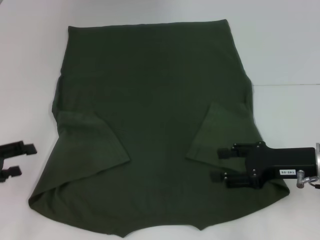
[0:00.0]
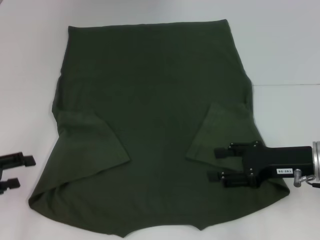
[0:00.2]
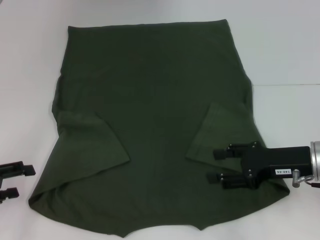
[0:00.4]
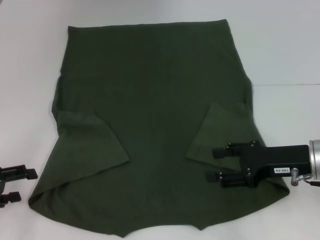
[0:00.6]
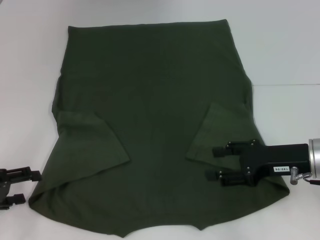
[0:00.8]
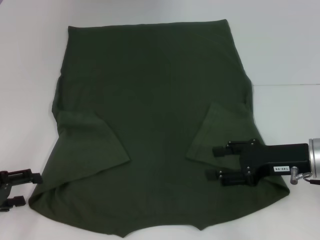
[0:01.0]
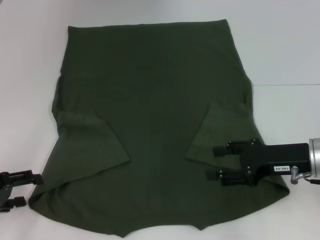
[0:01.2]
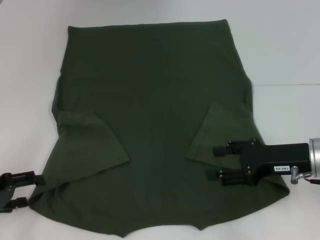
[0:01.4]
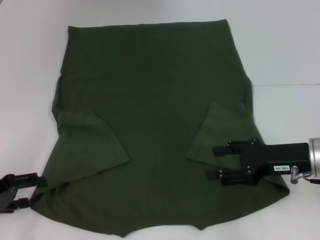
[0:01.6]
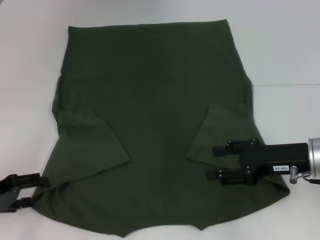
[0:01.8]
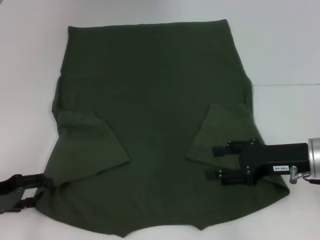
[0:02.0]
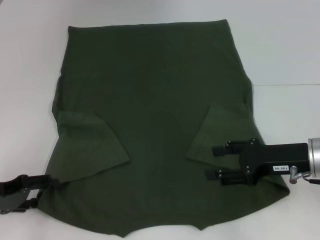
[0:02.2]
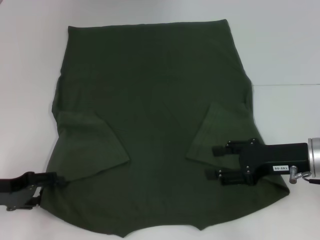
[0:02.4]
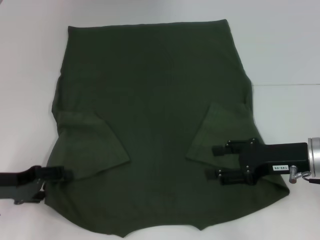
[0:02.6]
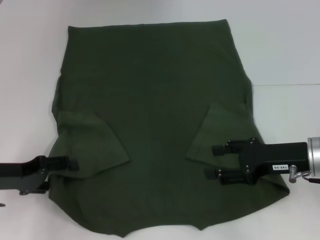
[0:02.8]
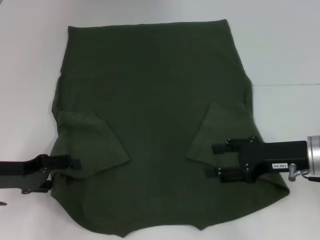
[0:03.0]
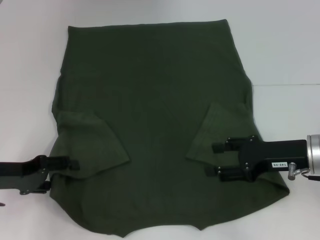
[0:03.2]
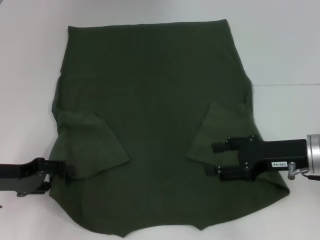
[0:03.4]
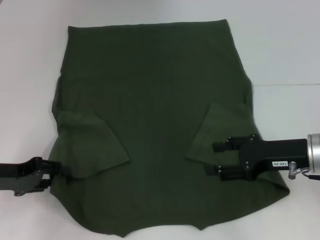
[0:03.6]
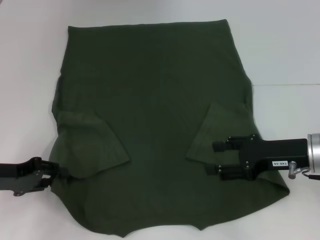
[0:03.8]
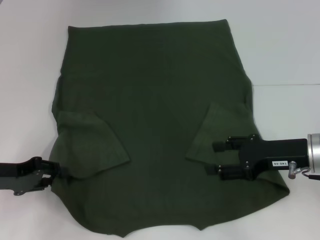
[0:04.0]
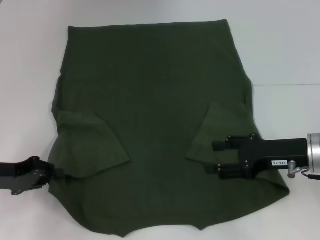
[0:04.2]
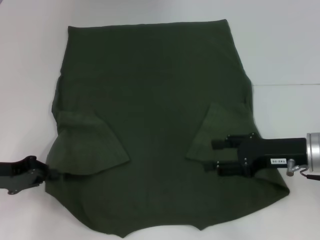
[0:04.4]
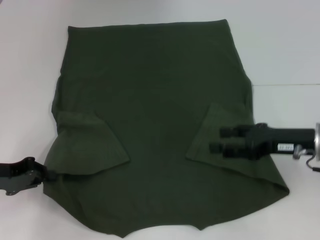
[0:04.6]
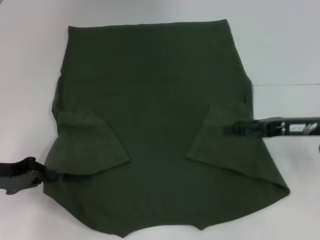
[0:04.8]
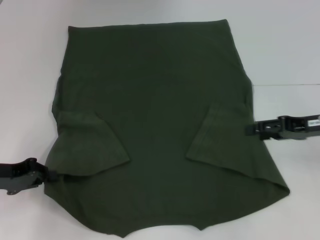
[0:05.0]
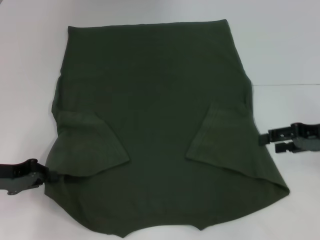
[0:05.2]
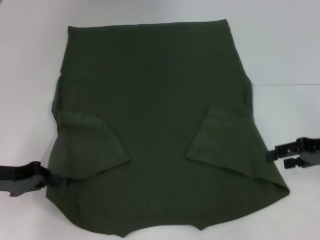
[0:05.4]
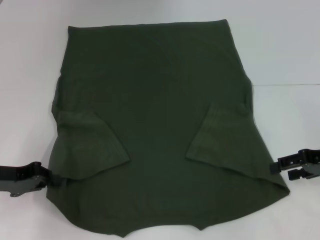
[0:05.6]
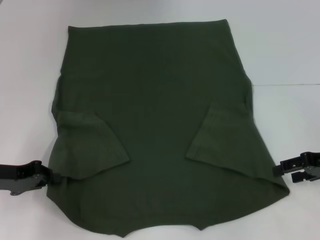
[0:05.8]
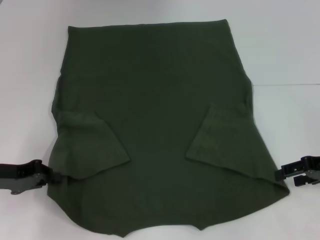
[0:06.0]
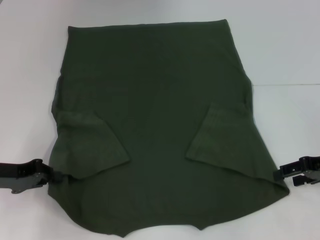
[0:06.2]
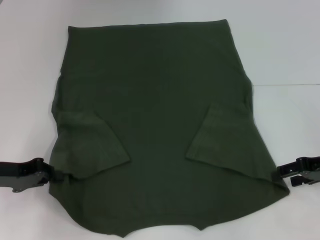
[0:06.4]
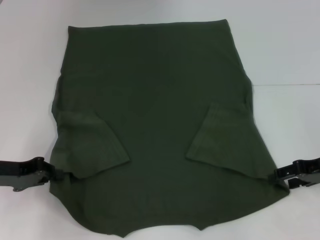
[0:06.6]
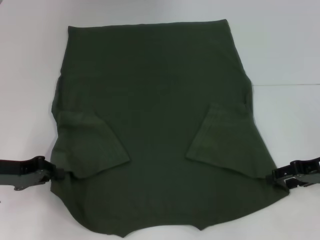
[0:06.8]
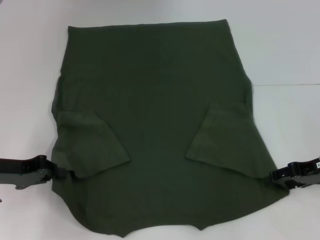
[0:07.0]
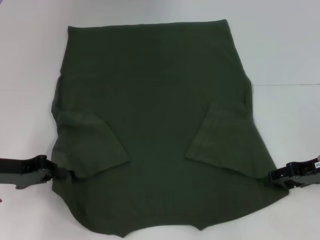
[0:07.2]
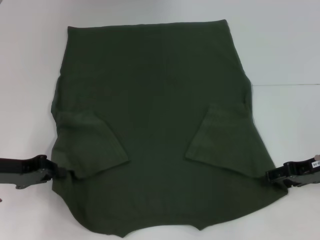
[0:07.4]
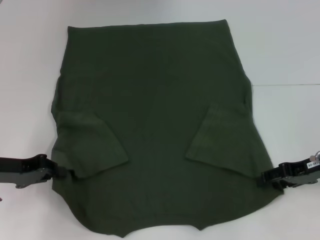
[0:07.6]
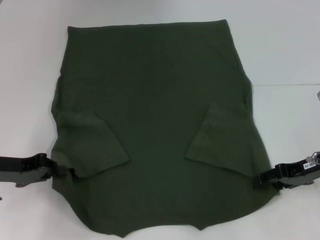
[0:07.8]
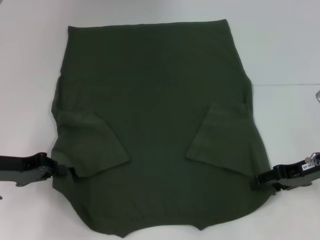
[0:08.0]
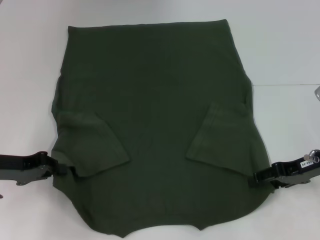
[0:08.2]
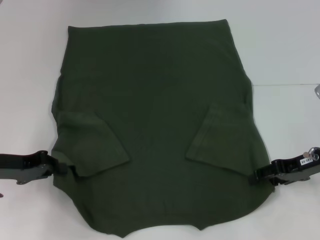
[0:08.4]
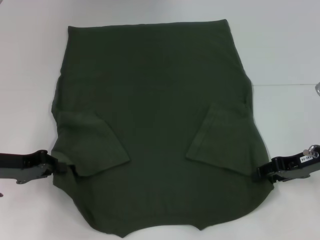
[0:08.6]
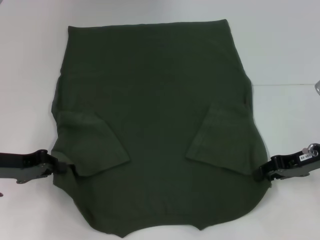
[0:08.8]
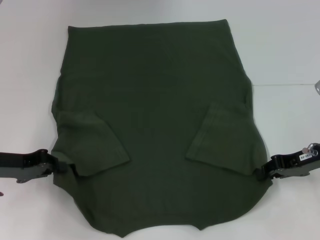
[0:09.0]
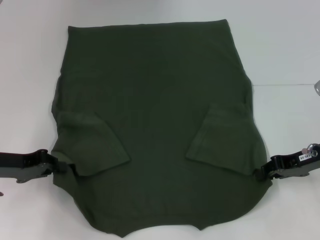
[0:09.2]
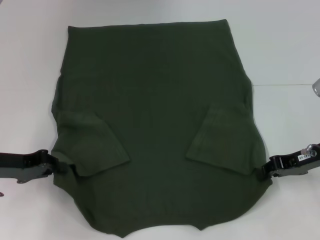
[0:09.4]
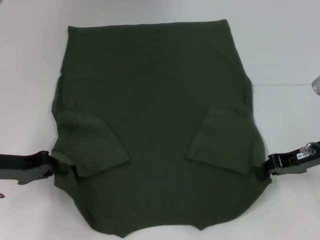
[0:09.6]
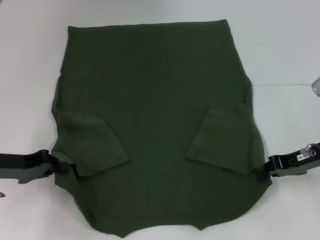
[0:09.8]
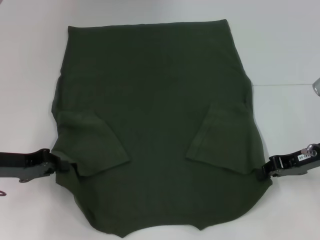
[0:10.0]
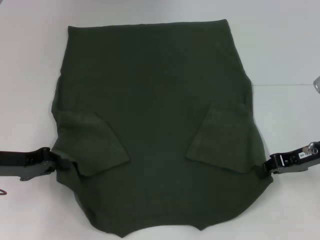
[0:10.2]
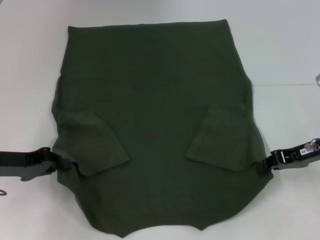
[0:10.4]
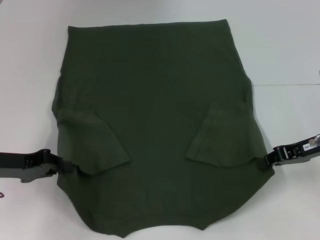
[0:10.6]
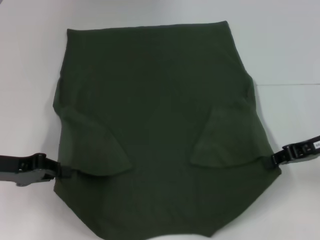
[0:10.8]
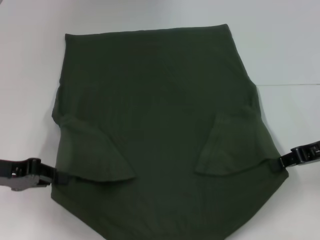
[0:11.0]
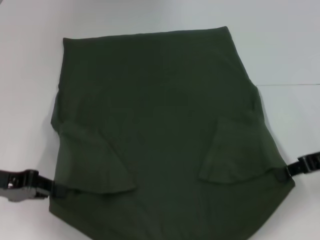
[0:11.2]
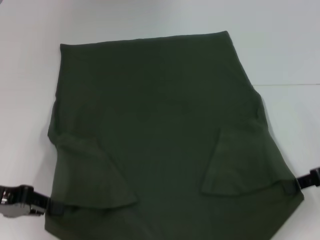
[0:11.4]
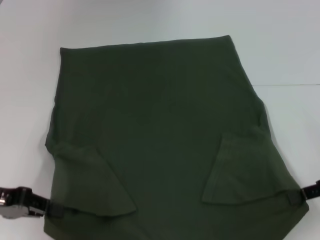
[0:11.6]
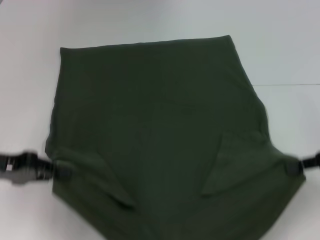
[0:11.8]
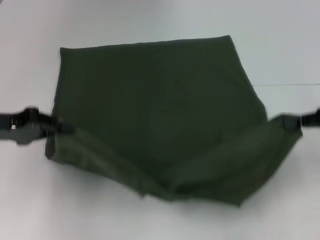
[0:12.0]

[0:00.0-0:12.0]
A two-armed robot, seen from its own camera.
Step, 0.0 to 4.8 s: Grab the bottom left corner with your left hand.
Step, 5.0 to 9.0 s: Grab the bottom right corner with your right hand.
0.0 to 1.6 s: The grippers move only a little.
1.6 to 3.0 s: The left gripper changes place by about 5 cm.
3.0 to 4.4 s: The left gripper closes.
4.4 to 6.0 s: The right gripper travels to the right by some 10 cm.
6.0 to 7.6 s: The grippers stay close to where they were, moving slightly.
7.6 to 9.0 s: The right gripper closes.
9.0 to 10.4 s: The grippers move only a little.
10.4 to 12.0 s: The left gripper is displaced upward by some 5 cm; the right gripper goes approximately 10 cm upward and to the right.

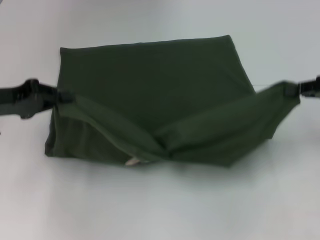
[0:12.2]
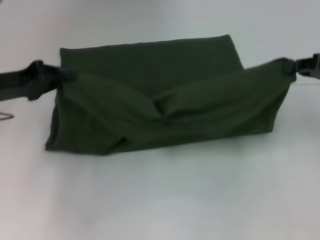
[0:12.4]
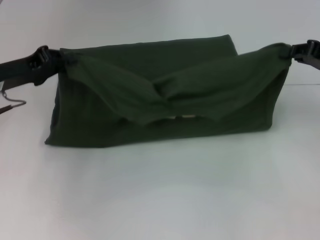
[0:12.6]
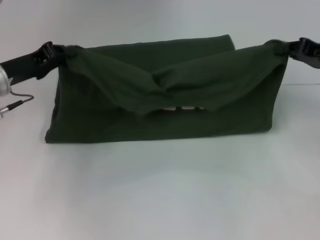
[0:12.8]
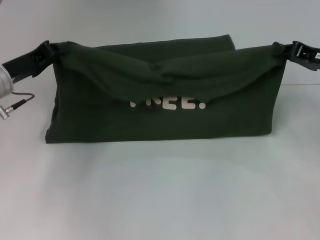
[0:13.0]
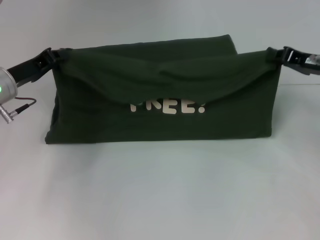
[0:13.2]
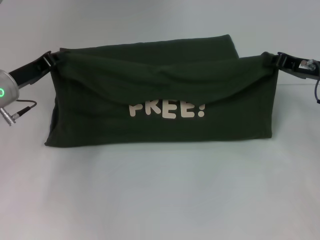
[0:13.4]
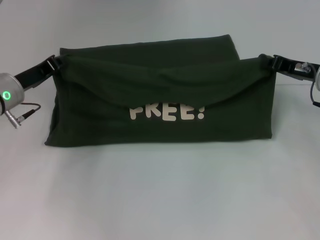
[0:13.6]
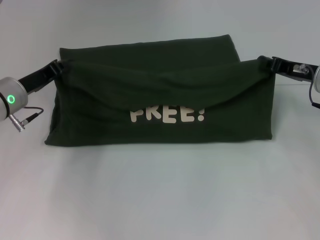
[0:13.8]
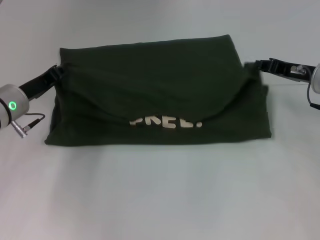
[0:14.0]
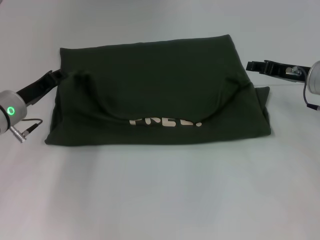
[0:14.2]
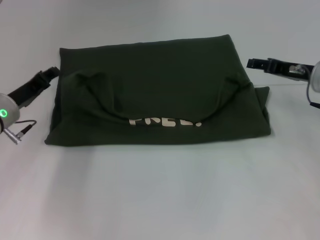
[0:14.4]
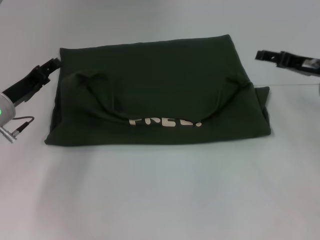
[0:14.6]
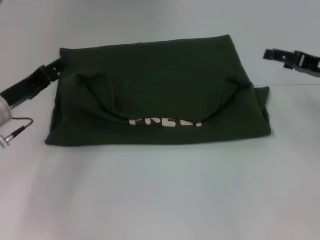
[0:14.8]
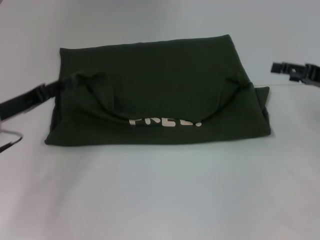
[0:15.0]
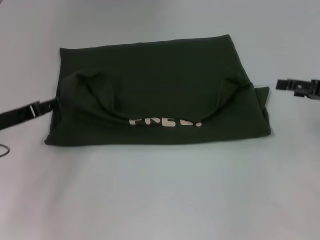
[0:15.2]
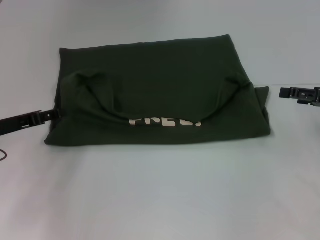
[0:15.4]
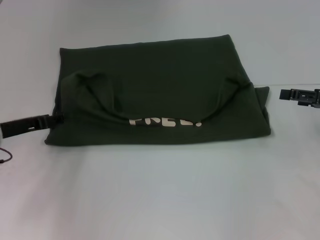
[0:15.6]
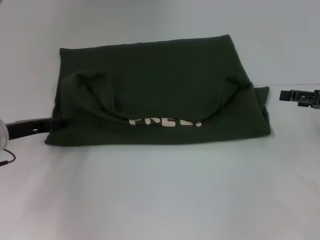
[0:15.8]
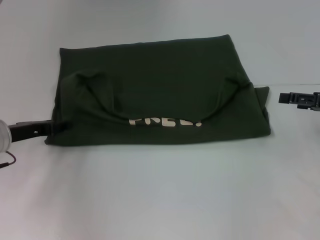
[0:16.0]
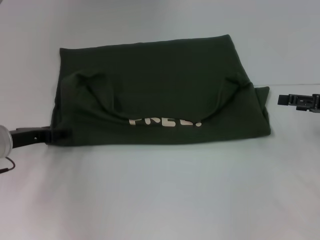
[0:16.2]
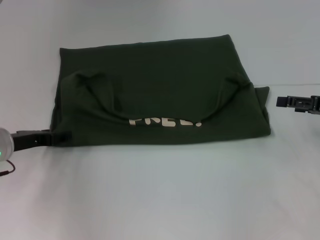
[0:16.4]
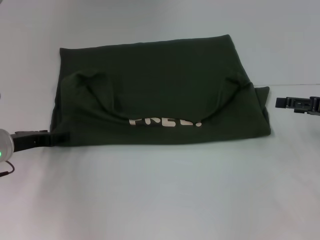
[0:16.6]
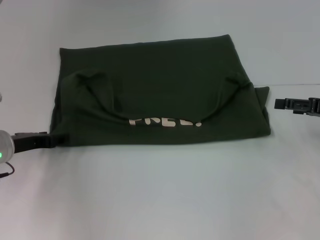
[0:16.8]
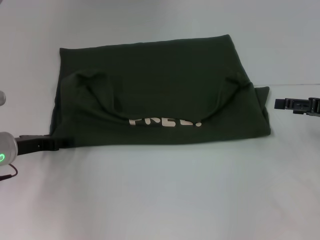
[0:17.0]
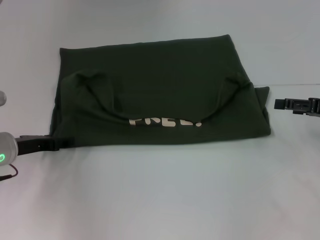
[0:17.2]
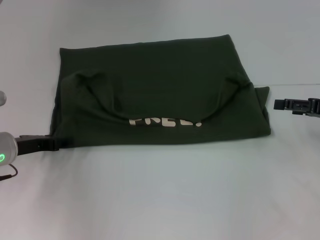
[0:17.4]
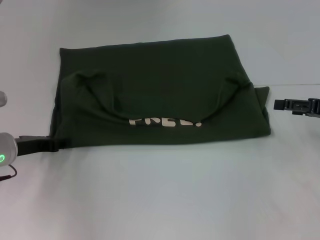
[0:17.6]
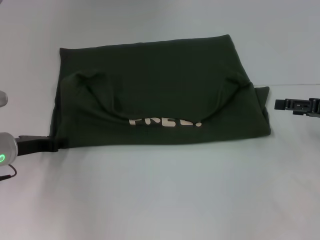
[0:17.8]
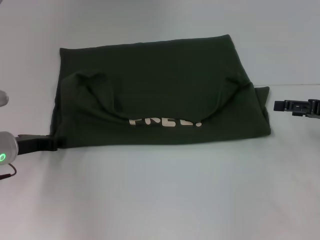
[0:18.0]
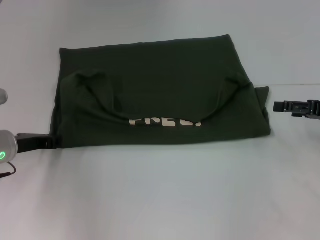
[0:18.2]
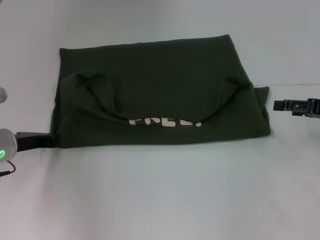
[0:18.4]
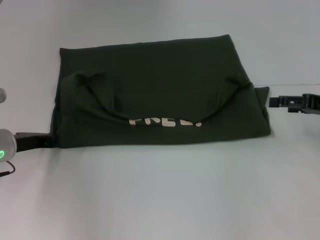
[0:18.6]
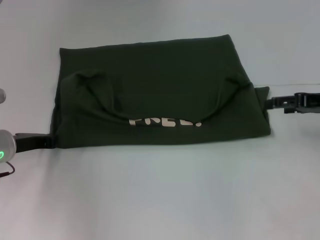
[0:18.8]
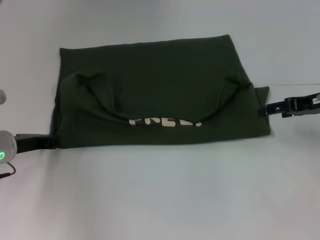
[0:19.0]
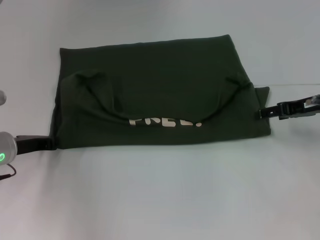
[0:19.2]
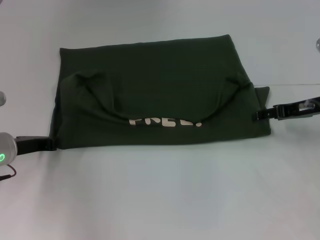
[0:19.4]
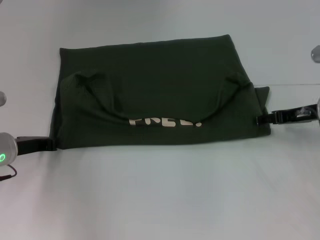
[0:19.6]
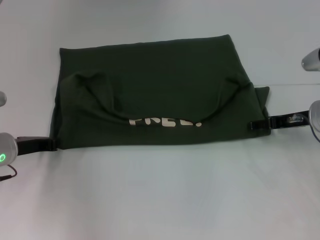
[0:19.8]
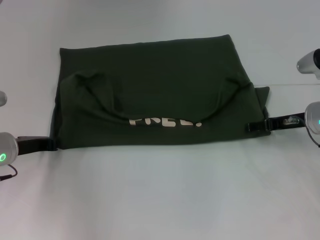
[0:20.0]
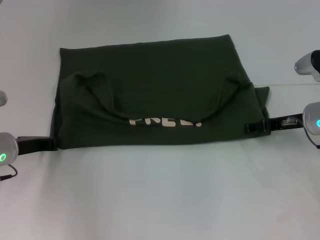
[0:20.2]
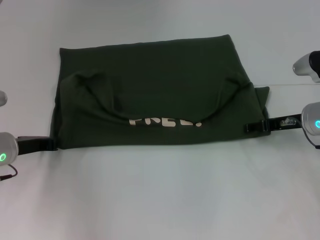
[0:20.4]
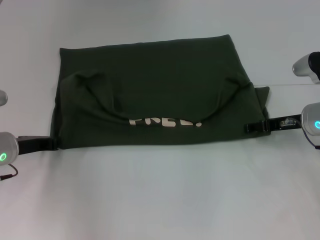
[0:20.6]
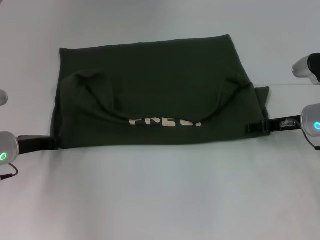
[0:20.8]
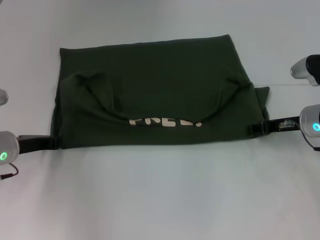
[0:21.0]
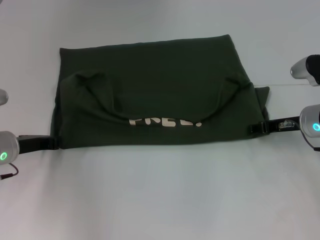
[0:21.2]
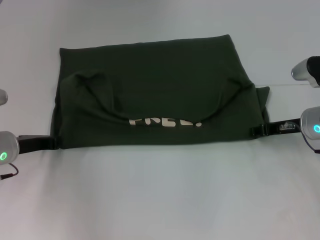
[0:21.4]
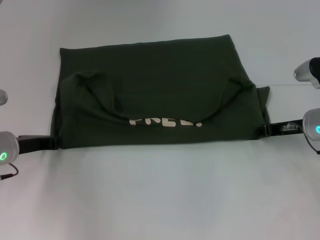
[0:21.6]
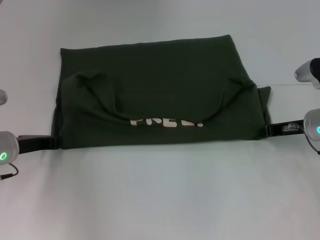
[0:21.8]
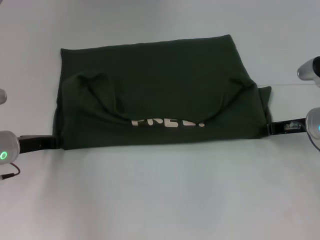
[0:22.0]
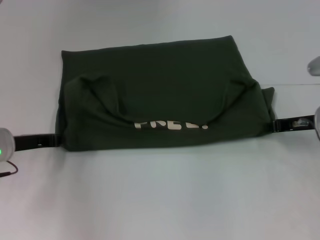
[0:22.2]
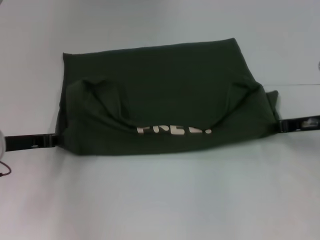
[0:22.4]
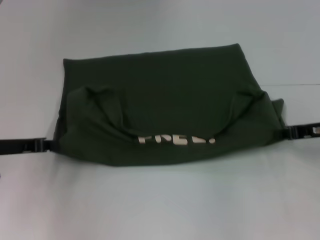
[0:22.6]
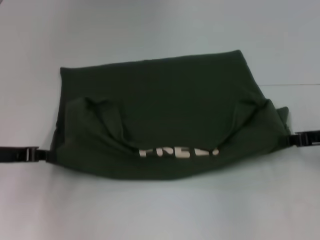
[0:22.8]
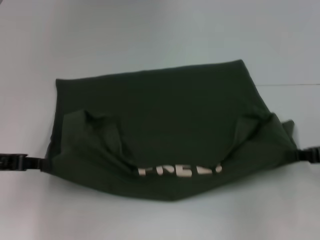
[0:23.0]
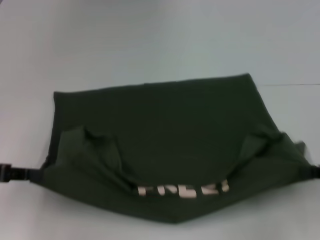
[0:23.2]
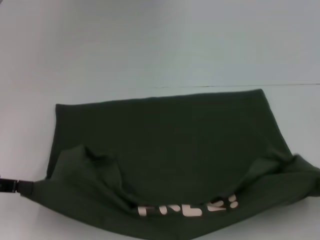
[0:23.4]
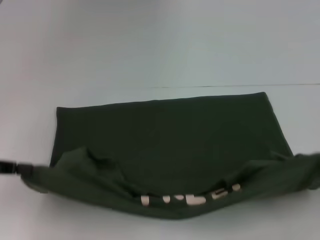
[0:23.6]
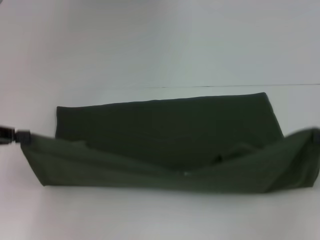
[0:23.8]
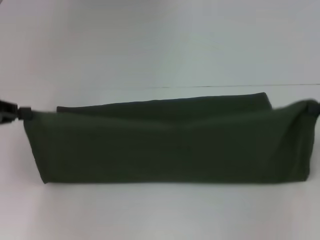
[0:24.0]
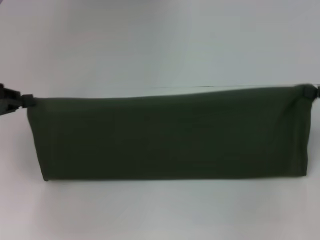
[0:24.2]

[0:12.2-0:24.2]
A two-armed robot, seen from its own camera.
Step, 12.2 to 14.4 s: Fold the clothes with your left hand.
Step, 12.2 to 14.4 s: Fold the clothes with your right hand.
Step, 14.6 to 23.2 s: Pull the clothes with your left hand.
Step, 14.6 to 23.2 s: Pull the clothes with your right hand.
12.2 to 13.8 s: The right gripper goes some 10 cm forward, to the left and downward; the left gripper goes about 10 cm downward, forward and to the right.
13.8 to 15.2 s: The right gripper heads to the right and backward, covering roughly 10 cm, and opens up. Meanwhile the left gripper shifts some 5 cm backward, and opens its fingers.
16.6 to 18.2 s: The left gripper closes.
18.2 to 19.8 s: The right gripper travels to the left by approximately 5 cm.
19.8 to 21.2 s: The right gripper closes its fingers.
21.2 to 22.6 s: The left gripper changes place by some 5 cm; the right gripper shifts by some 5 cm, and closes its fingers.
22.6 to 24.2 s: The right gripper heads to the right, covering about 5 cm, and travels backward and back again, roughly 15 cm each way, while the left gripper travels upward by about 5 cm.
